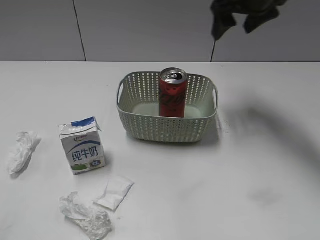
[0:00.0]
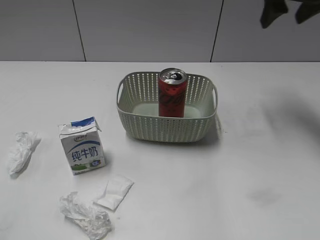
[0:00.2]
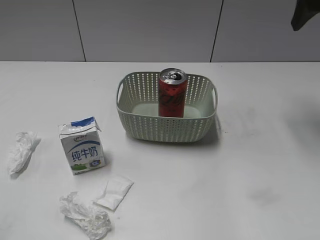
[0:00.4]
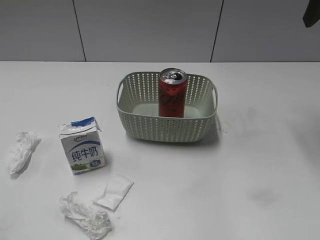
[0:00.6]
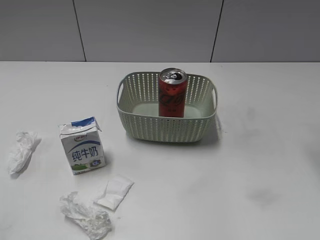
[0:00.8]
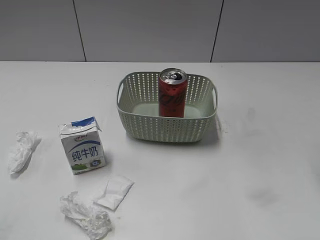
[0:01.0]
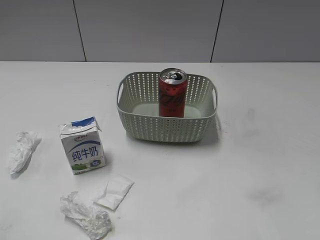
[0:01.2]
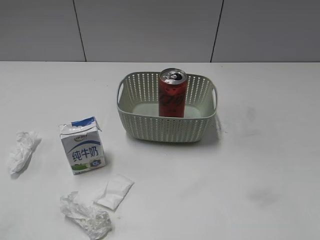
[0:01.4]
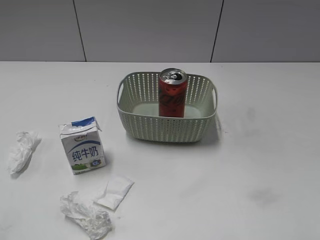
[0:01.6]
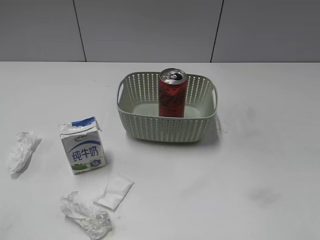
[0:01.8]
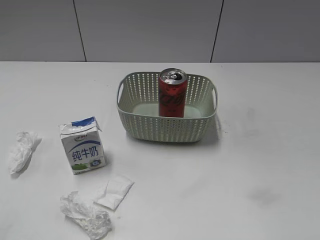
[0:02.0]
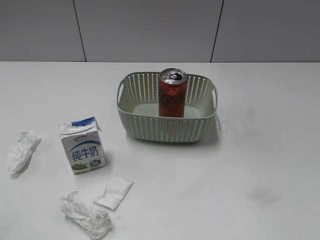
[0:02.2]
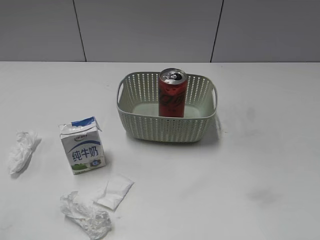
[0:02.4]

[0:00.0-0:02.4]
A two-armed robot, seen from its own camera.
0.0 to 1.2 s: The right gripper shifts some 25 cm backward and to the right, and closes up.

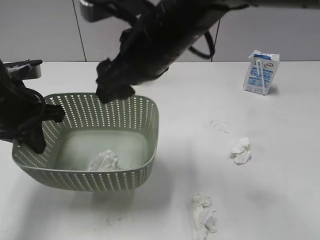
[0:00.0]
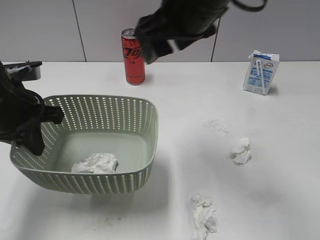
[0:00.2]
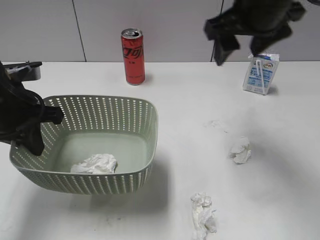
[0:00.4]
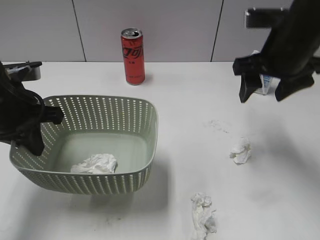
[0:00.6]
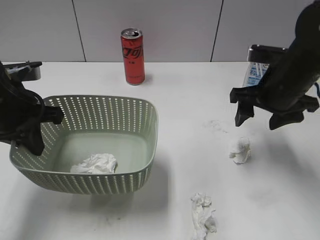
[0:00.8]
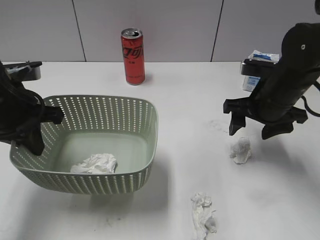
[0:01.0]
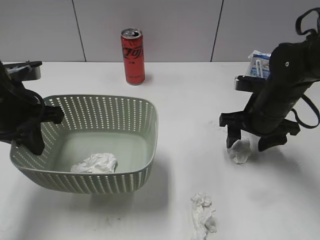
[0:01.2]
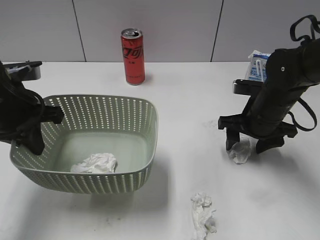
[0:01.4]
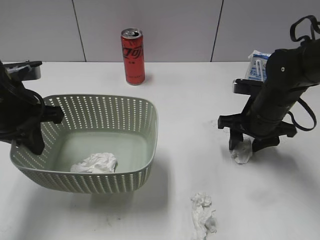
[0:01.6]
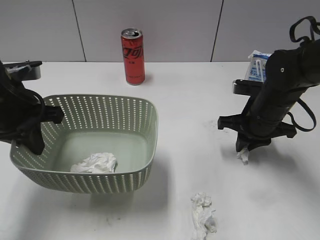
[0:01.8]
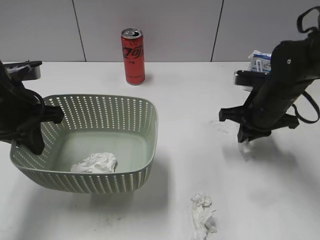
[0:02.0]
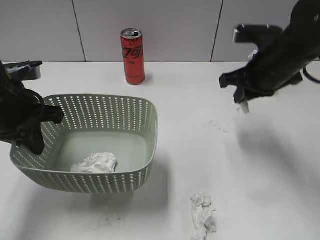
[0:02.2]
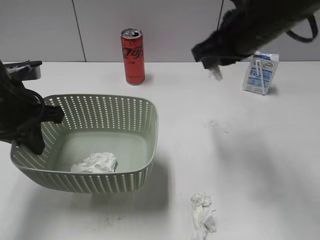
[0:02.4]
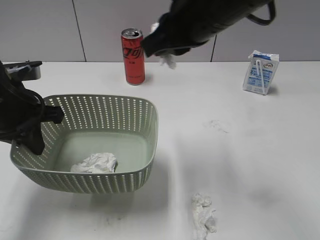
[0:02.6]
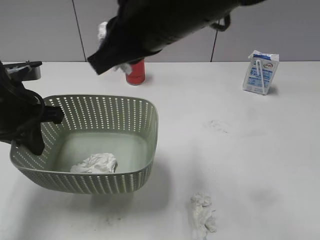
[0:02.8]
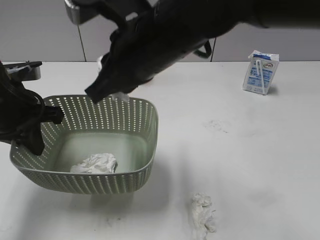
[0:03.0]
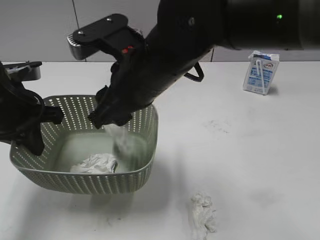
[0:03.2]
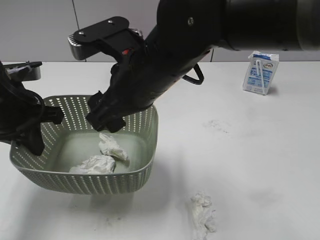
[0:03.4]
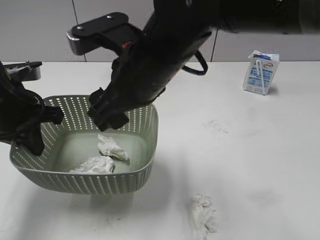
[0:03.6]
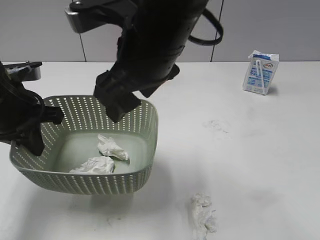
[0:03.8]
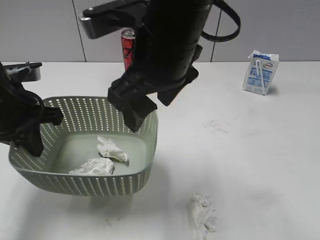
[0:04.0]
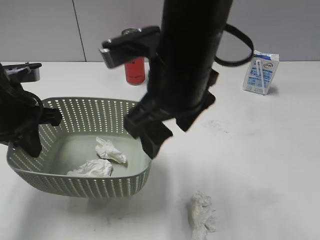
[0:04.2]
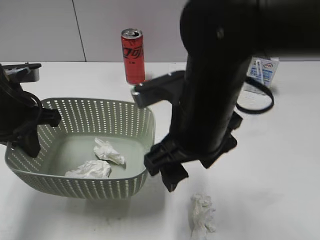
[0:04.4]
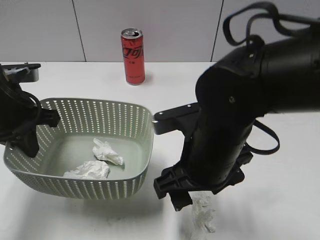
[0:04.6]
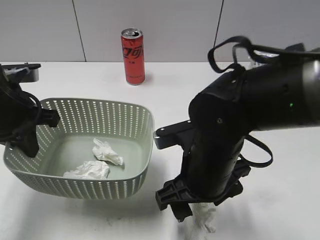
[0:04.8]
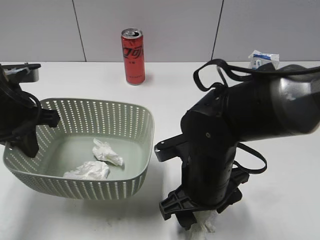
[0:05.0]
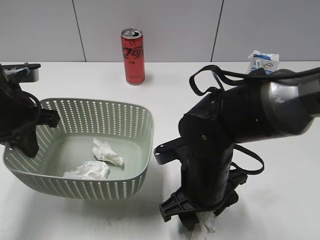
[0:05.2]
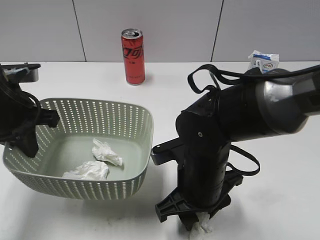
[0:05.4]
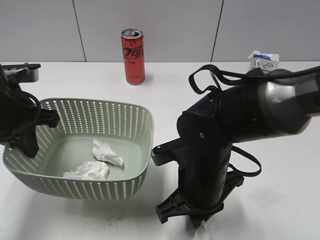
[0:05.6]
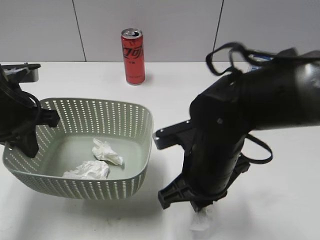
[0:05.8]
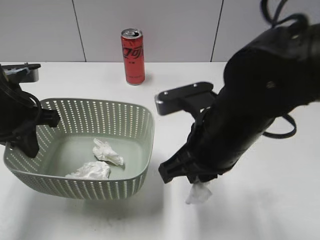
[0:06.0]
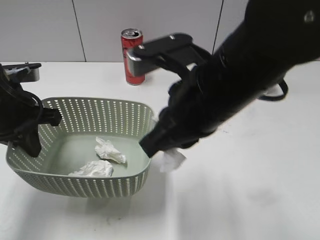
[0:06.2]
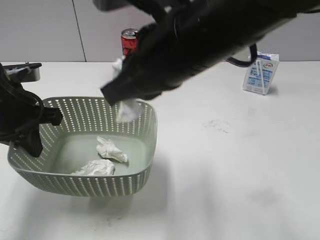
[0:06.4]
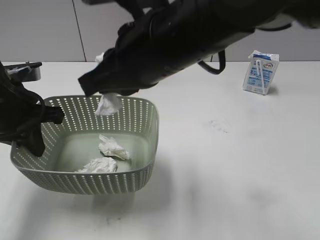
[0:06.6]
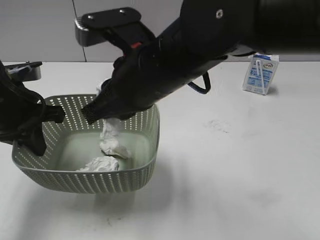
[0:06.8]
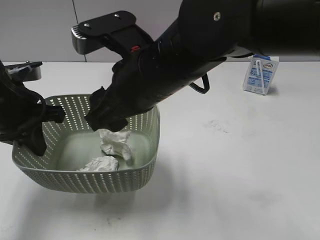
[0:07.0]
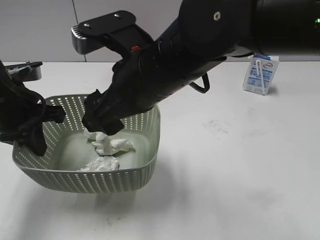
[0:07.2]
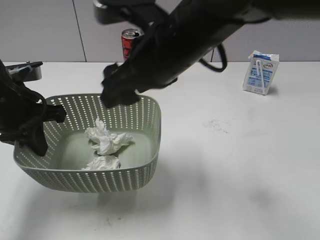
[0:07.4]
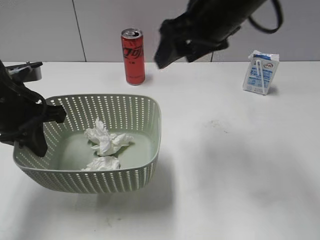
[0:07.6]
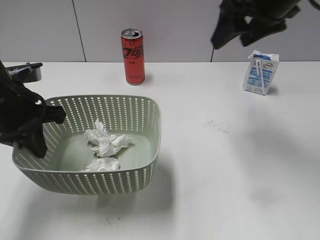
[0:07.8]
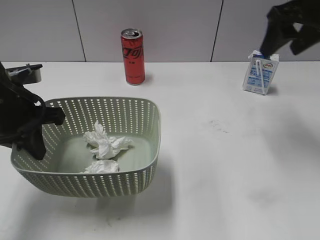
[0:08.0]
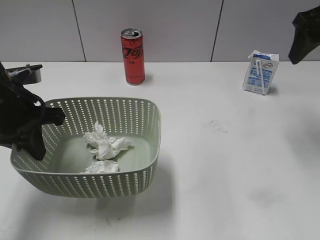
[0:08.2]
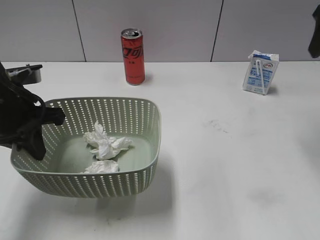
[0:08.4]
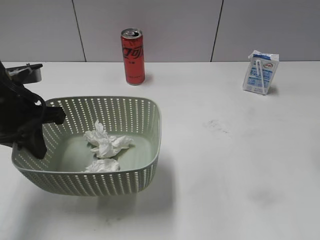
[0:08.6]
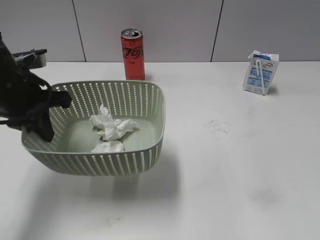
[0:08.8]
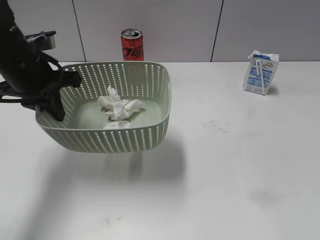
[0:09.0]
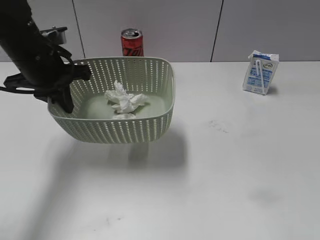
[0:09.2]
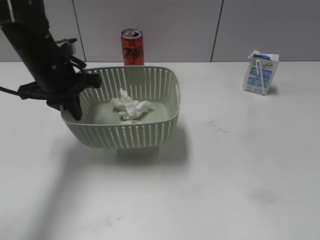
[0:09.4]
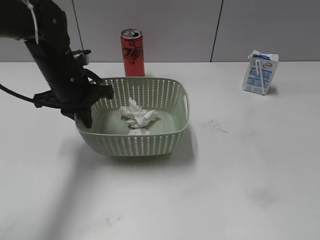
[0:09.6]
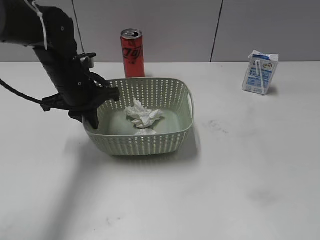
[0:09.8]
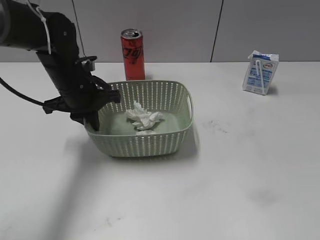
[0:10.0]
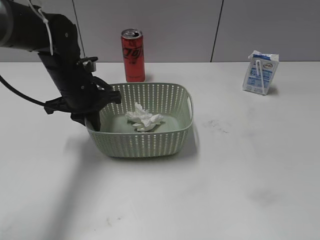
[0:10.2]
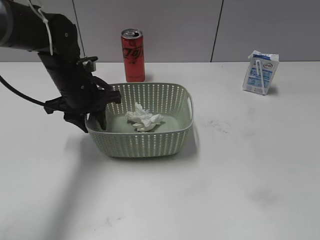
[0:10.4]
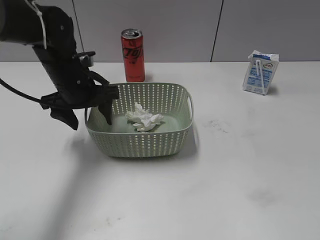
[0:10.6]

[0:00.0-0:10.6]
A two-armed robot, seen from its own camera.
Step, 0.2 to 1.8 s: Grasp the waste paper with right gripper.
Step, 2.0 to 3.8 s: Place the waste paper in the basket with right gripper.
Step, 4.0 to 5.6 s: Grasp the waste paper with right gripper.
Step, 5.8 to 7.4 s: Place the waste paper in the basket with right gripper.
0.0 to 1.6 s: The right gripper is displaced to the right and downward by about 25 cm.
1.6 to 3.0 s: The right gripper heads to the left, upward and backward, covering roughly 25 cm, and closes.
3.0 to 4.6 s: The right gripper shifts about 15 cm downward, to the right and backward, and opens up.
4.6 to 6.0 s: The right gripper closes up.
6.0 to 7.6 s: The right gripper goes approximately 15 cm forward and upward, and opens up.
7.6 to 9.0 s: The left gripper goes about 5 cm forward. Meanwhile the right gripper moves to the right and backward, some 25 cm.
9.0 to 10.6 s: The right gripper goes about 15 cm backward and downward; the left gripper moves downward and to the right, some 10 cm, and opens.

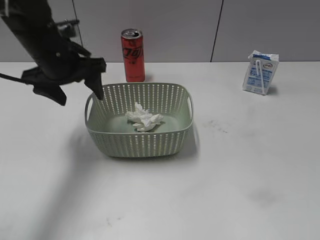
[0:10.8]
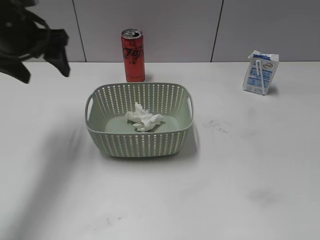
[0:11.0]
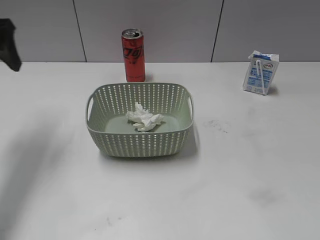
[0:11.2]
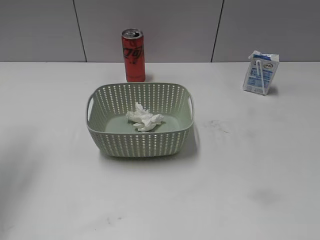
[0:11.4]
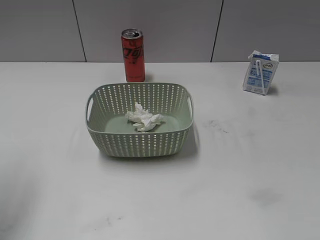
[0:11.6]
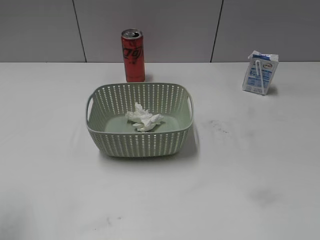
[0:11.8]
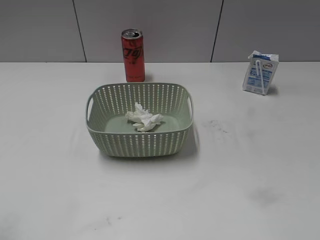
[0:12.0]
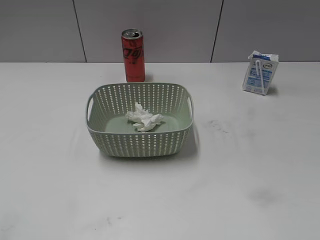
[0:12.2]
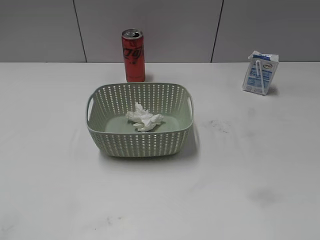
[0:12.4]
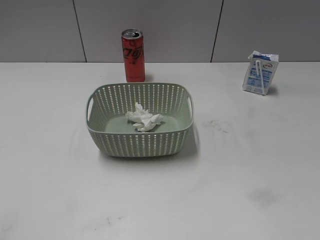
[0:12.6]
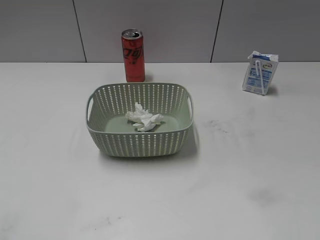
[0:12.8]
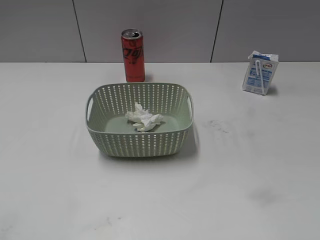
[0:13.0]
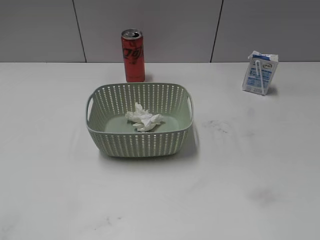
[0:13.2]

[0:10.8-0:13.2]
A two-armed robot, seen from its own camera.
10.8 to 12.0 s: The left gripper is displaced backward and to the left by about 30 cm.

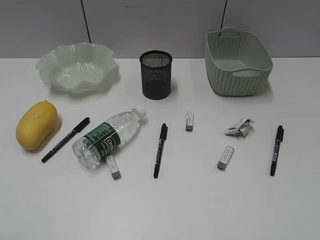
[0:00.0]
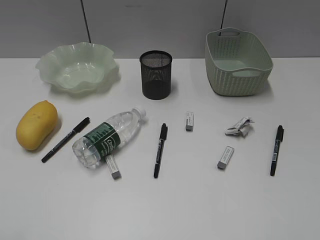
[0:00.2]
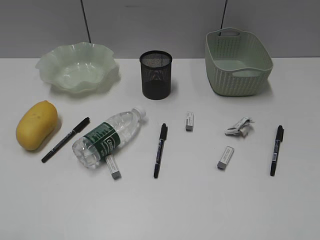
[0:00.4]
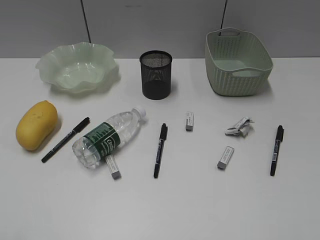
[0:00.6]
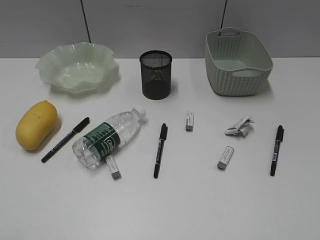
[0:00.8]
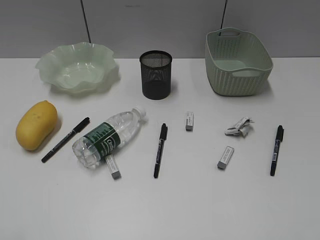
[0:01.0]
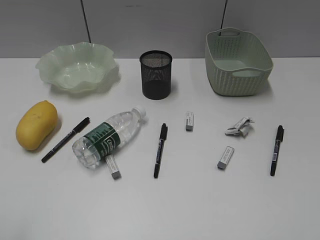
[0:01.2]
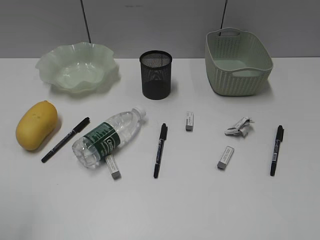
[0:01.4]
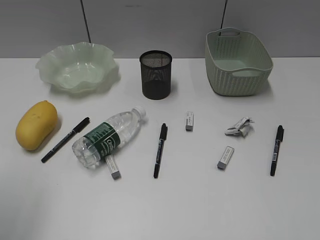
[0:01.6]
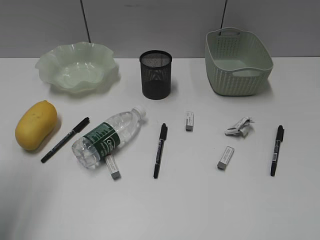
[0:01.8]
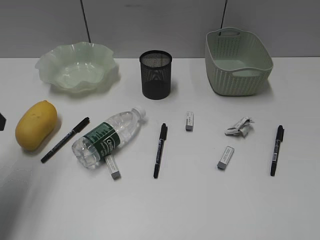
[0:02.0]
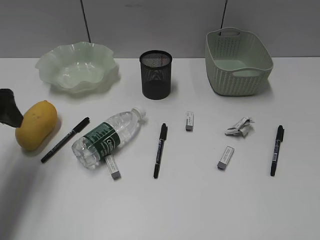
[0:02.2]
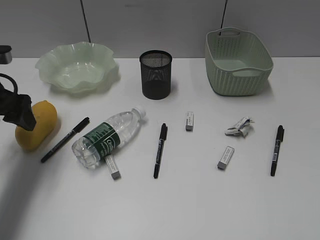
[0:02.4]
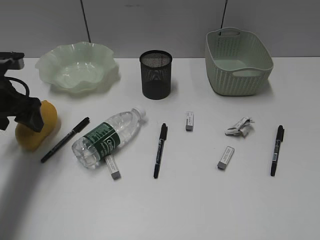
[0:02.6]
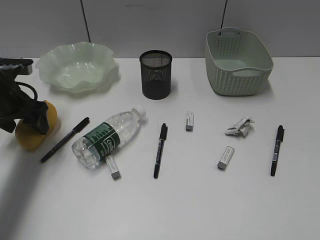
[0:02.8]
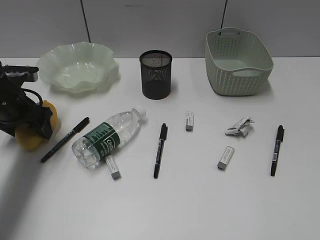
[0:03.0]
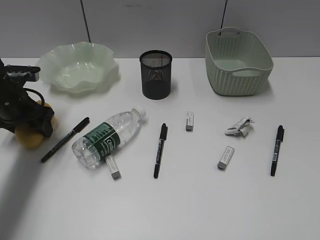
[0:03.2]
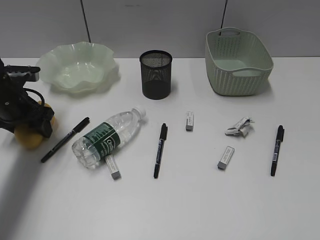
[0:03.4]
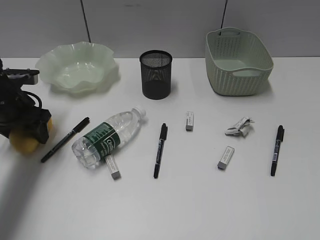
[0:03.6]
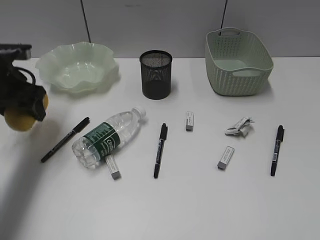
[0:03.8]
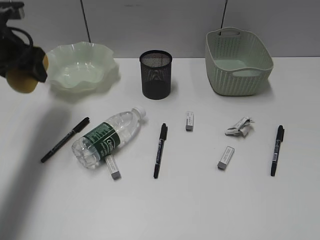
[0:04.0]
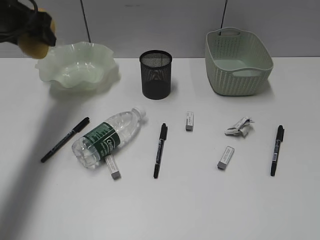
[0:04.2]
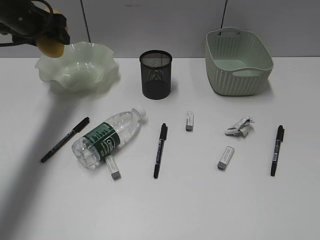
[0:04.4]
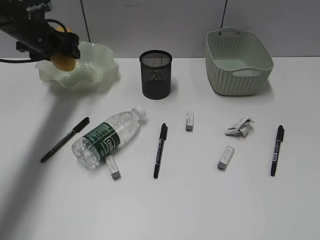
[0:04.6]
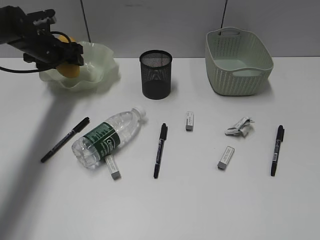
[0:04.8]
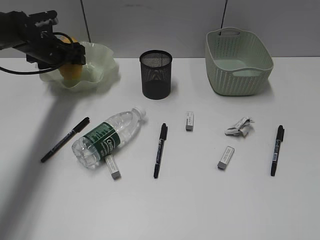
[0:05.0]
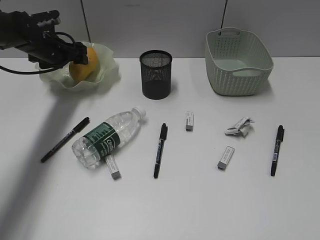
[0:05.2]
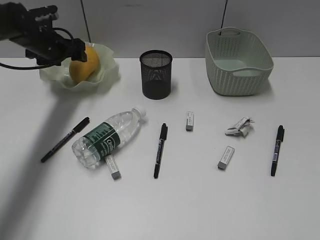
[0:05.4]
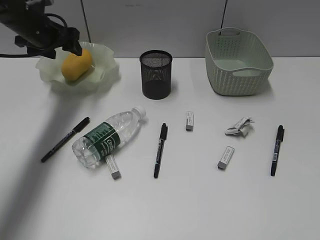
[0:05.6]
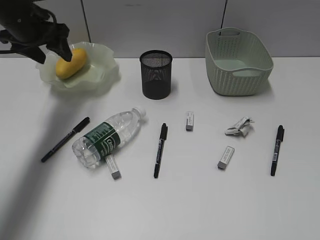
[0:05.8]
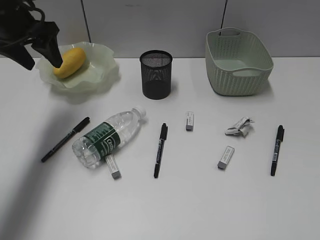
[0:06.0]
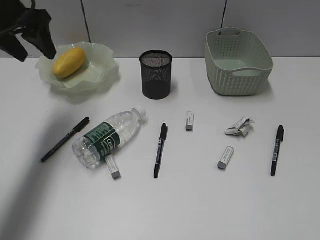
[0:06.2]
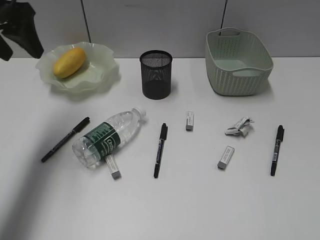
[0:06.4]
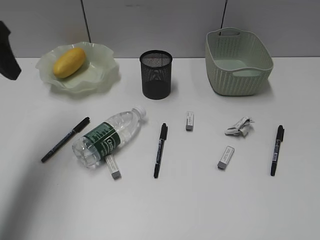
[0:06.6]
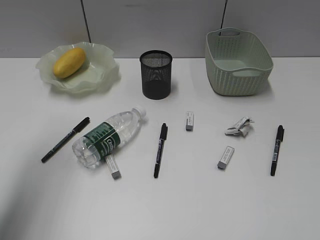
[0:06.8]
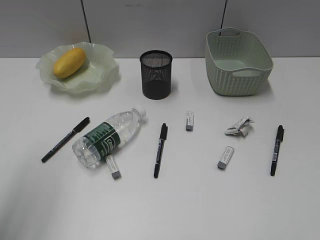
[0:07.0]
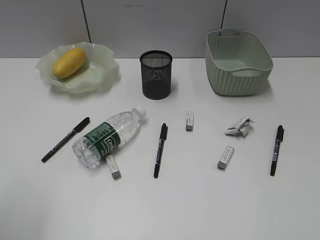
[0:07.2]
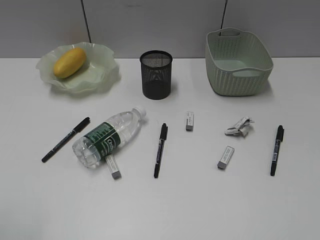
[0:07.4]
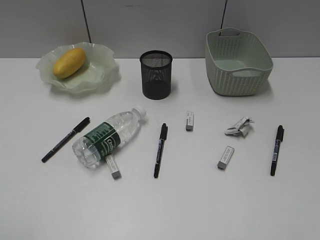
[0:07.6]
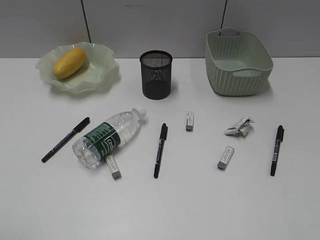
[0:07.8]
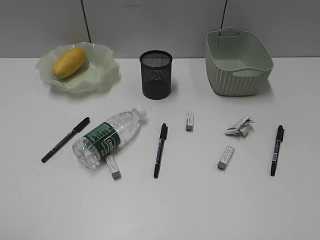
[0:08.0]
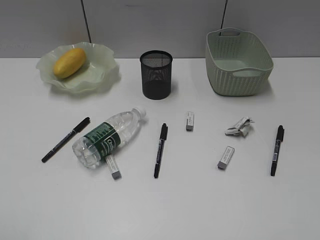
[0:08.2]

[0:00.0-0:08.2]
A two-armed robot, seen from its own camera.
Step, 1.0 to 3.4 s: Grasp the mango with left gripper.
Step, 3.6 to 5.6 s: Place the mango in the plate with left gripper.
1.6 to 3.2 s: The left gripper shifts roughly 30 cm forward and downward.
3.2 to 5.0 s: The left gripper goes about 15 cm forward.
5.0 to 6.6 s: The left gripper travels backward and upward by about 30 cm.
6.6 to 8.2 s: The left gripper heads backward, covering some 30 cm.
